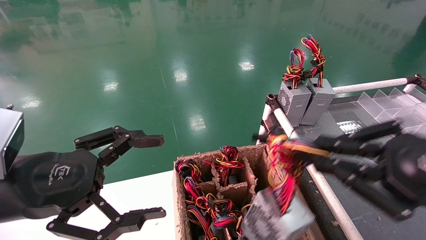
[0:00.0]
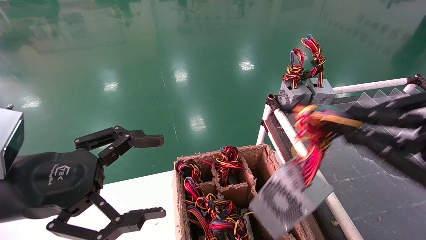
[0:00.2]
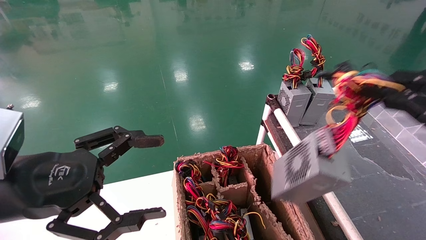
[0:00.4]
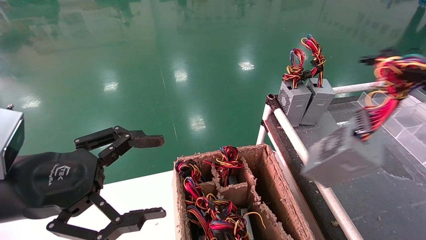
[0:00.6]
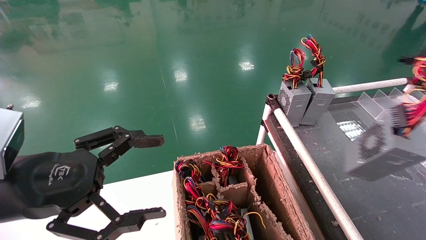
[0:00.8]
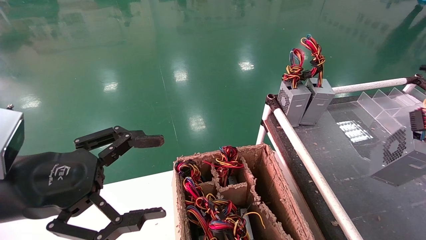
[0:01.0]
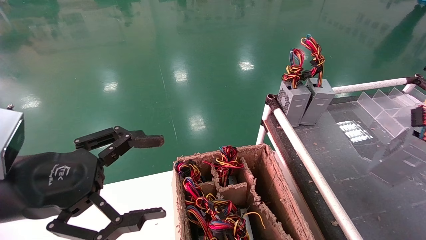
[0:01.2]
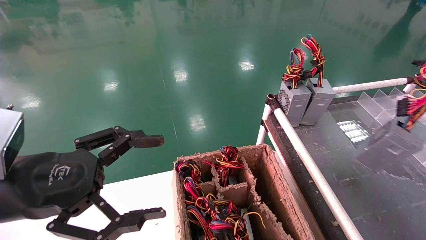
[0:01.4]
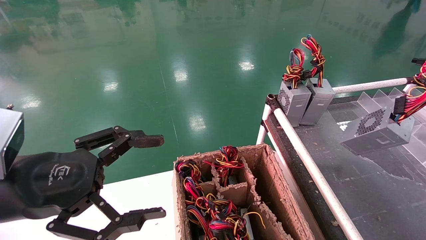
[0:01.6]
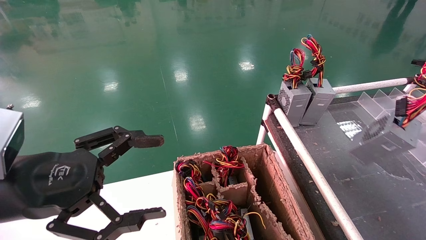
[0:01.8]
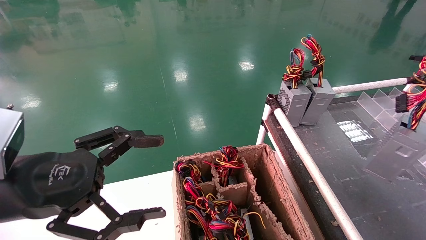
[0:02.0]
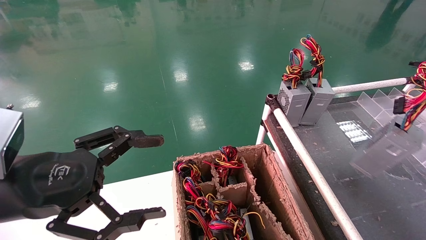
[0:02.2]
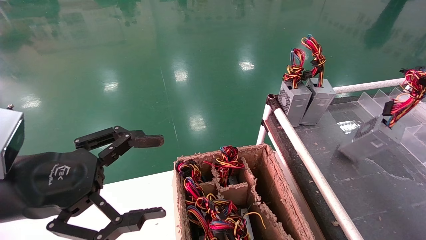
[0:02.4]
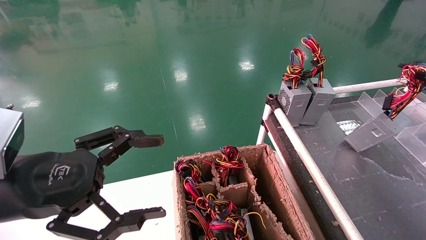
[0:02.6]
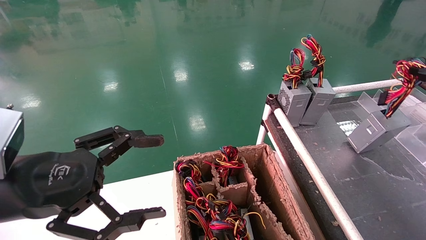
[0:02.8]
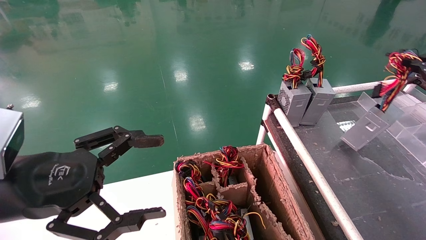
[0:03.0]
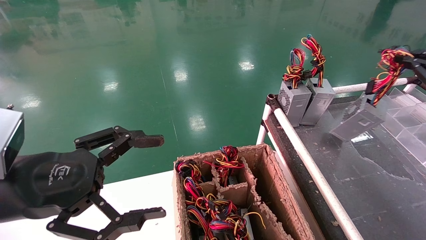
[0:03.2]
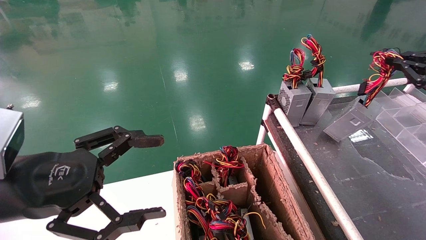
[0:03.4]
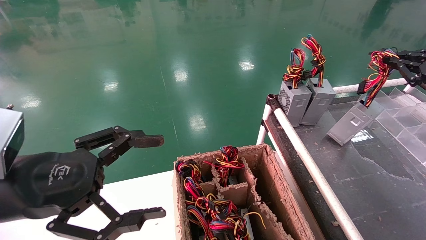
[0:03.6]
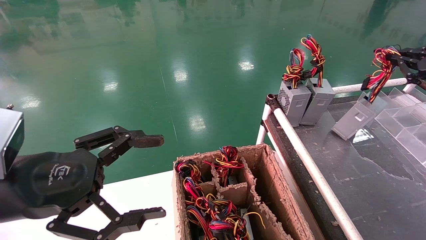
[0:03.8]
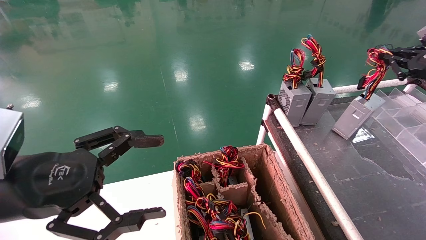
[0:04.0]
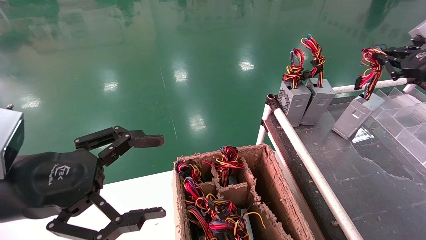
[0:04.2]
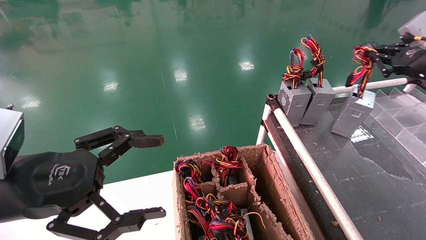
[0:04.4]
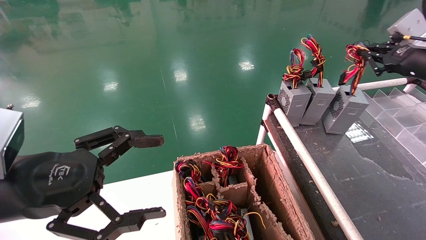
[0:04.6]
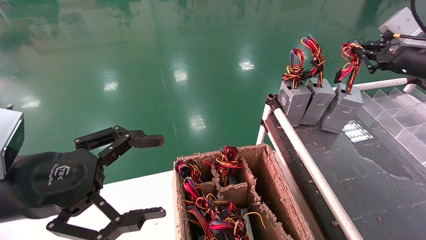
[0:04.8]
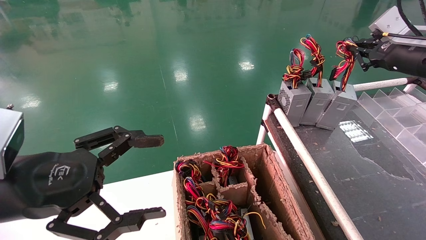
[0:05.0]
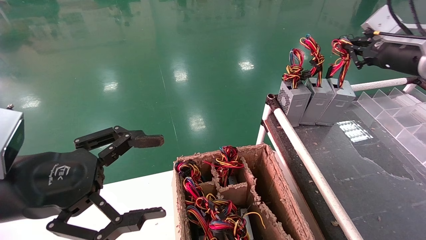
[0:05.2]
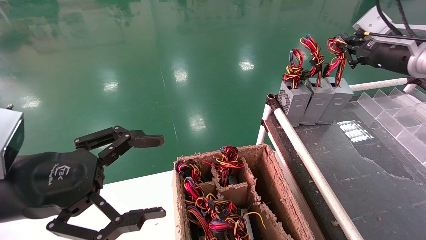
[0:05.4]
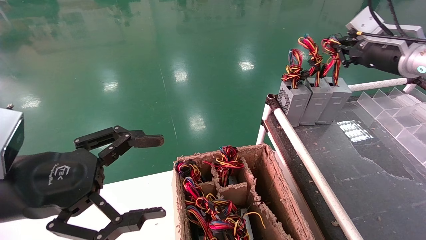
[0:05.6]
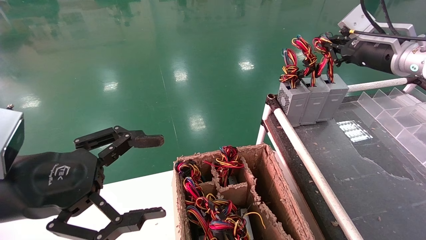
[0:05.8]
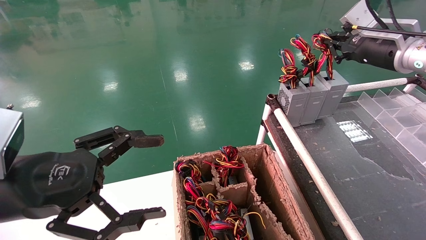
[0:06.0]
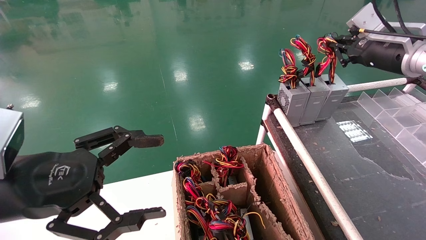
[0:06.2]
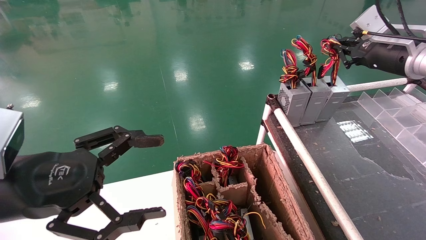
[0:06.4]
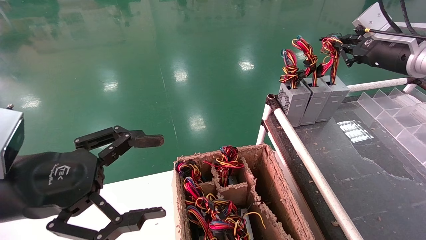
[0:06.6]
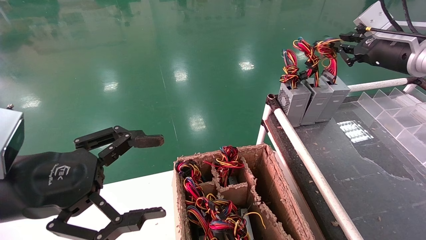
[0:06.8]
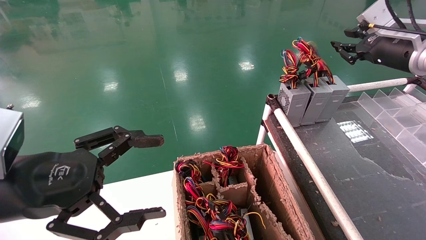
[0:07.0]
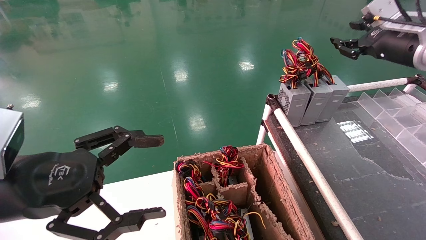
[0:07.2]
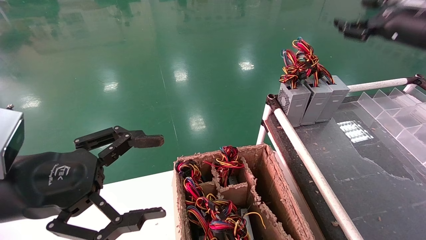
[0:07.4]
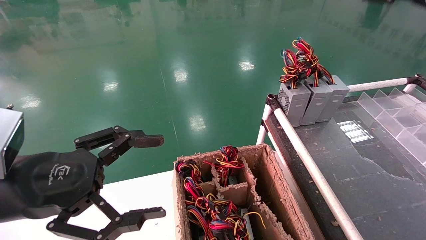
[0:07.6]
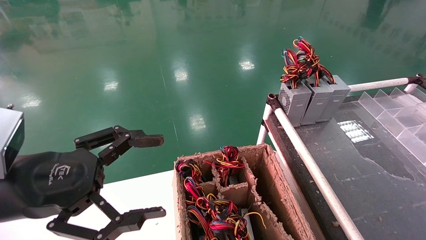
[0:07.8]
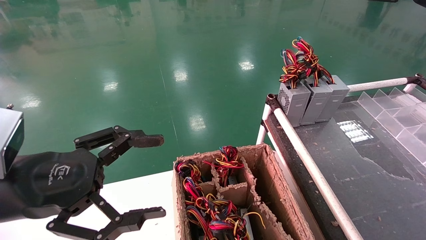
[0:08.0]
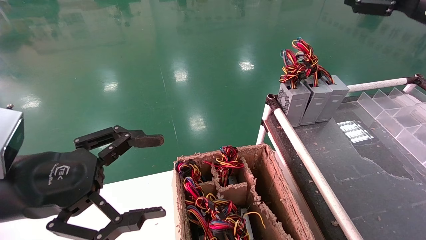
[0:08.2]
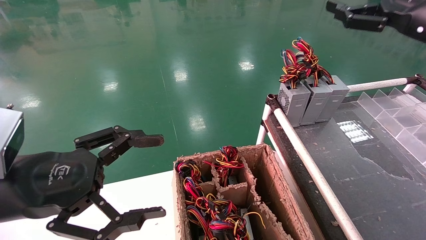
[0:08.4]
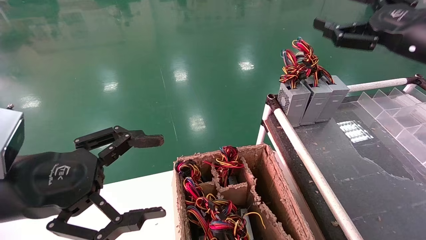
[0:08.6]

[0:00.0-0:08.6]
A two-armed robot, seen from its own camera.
Step, 0:00.0 to 0:06.6: Place the power supply on the operating table.
0:00.0 to 0:01.4: The right gripper moves to the right, about 20 cm.
0:01.4 to 0:02.8: The right gripper is displaced forward by some 10 cm.
0:02.8 to 0:04.4: The right gripper goes approximately 10 cm forward and to the left.
0:04.4 to 0:05.8: The right gripper goes about 10 cm to the left.
0:05.8 to 0:07.2: The grippers make only small movements.
0:07.2 to 0:08.6: The right gripper shifts some 10 cm backward, and opens its fingers.
